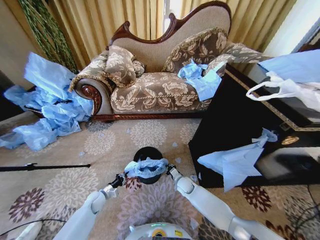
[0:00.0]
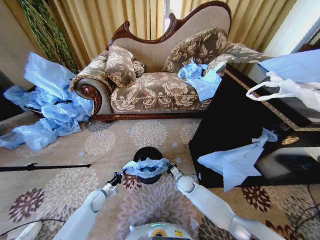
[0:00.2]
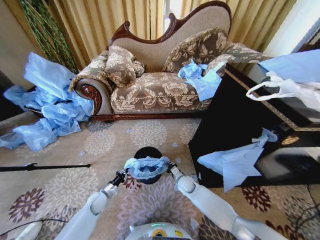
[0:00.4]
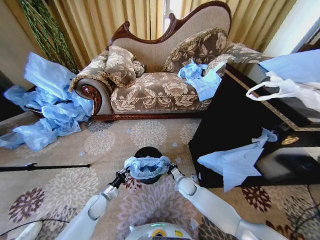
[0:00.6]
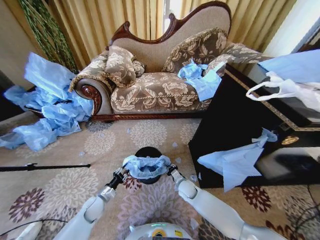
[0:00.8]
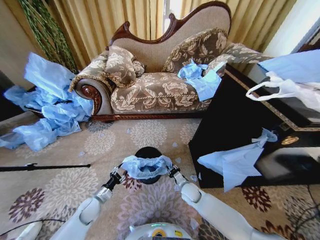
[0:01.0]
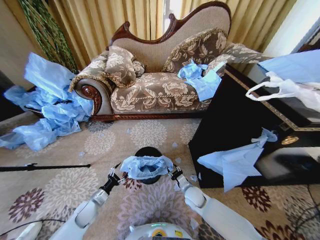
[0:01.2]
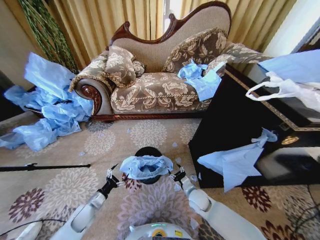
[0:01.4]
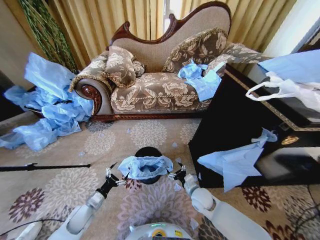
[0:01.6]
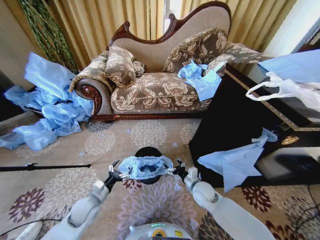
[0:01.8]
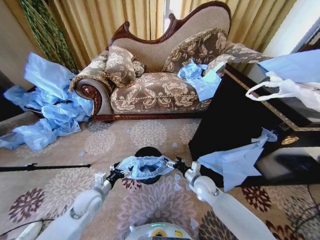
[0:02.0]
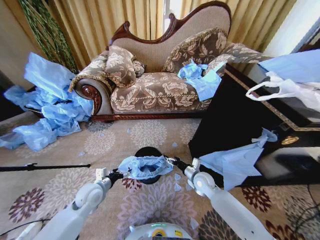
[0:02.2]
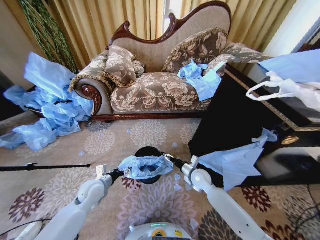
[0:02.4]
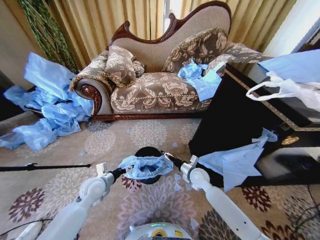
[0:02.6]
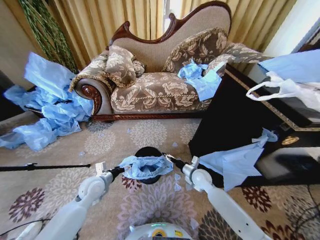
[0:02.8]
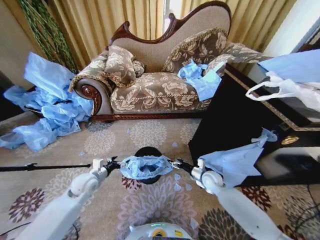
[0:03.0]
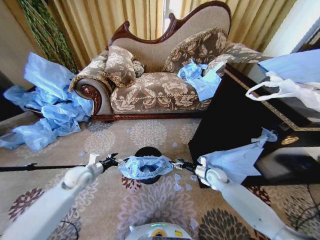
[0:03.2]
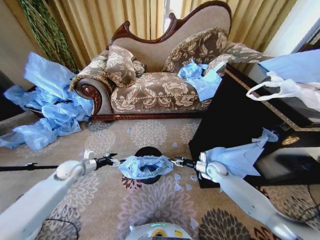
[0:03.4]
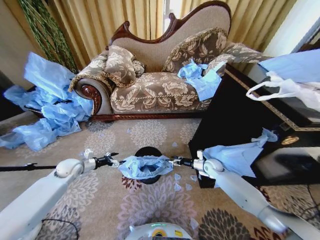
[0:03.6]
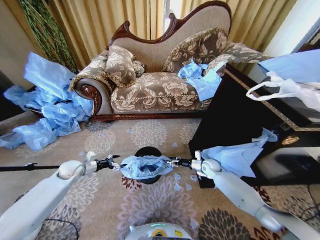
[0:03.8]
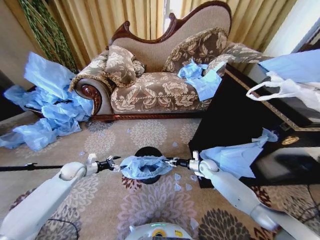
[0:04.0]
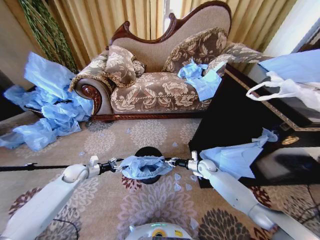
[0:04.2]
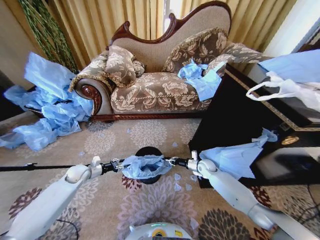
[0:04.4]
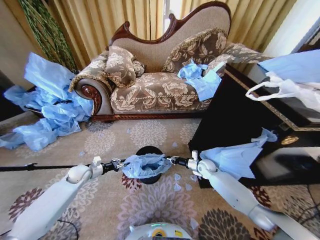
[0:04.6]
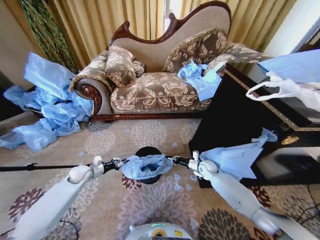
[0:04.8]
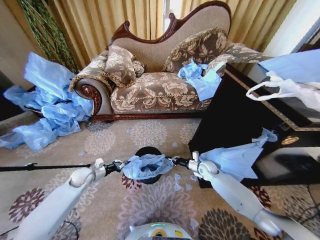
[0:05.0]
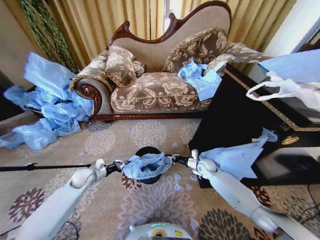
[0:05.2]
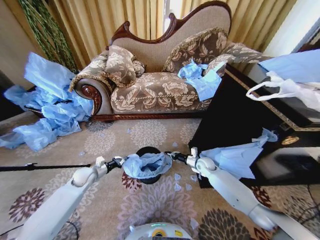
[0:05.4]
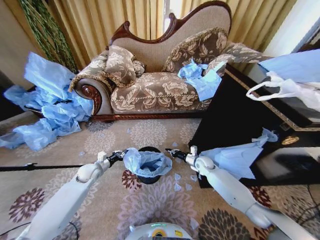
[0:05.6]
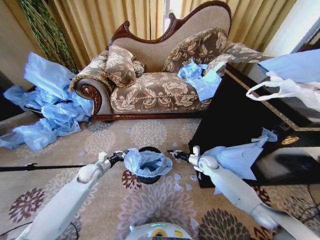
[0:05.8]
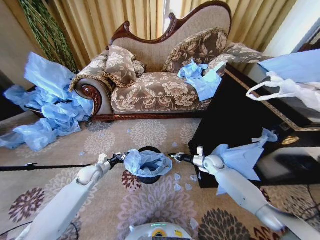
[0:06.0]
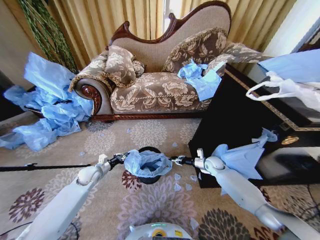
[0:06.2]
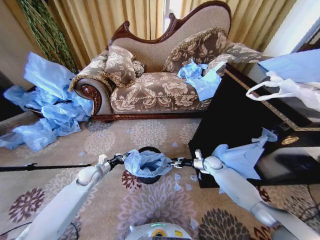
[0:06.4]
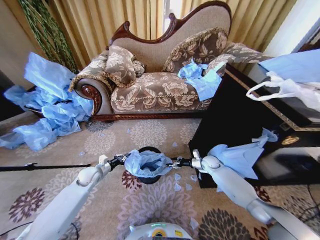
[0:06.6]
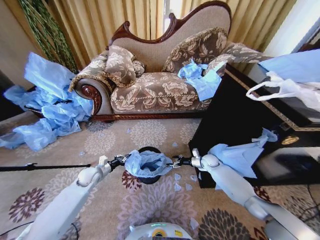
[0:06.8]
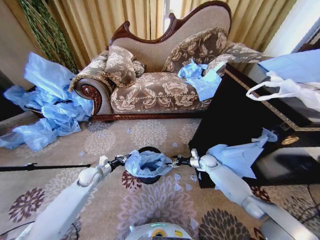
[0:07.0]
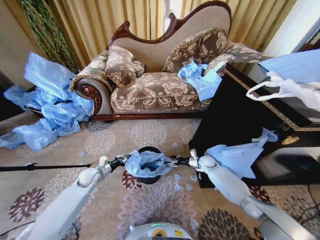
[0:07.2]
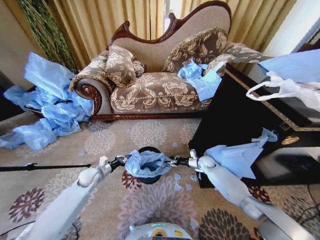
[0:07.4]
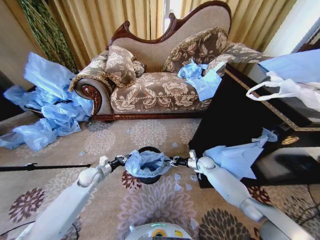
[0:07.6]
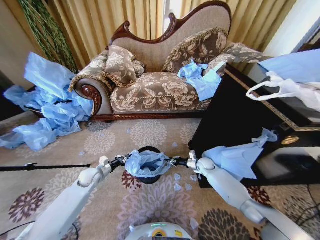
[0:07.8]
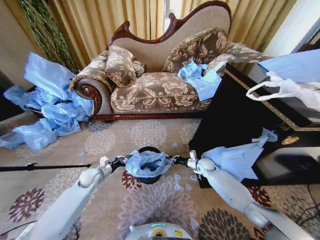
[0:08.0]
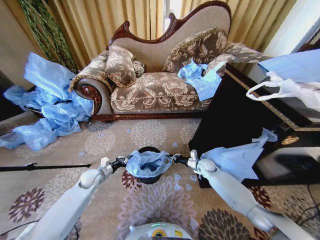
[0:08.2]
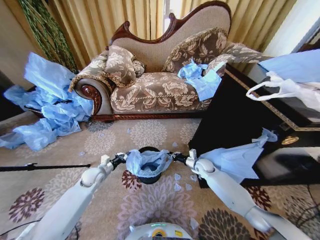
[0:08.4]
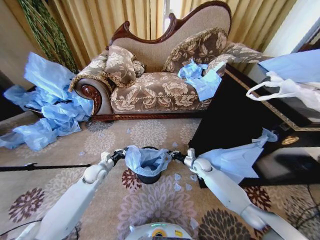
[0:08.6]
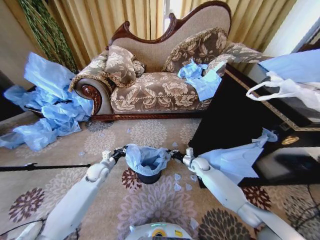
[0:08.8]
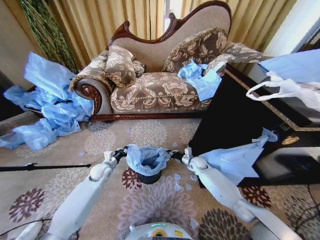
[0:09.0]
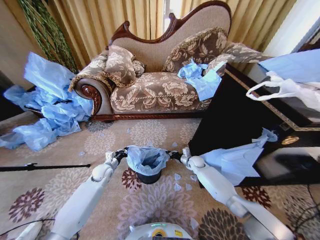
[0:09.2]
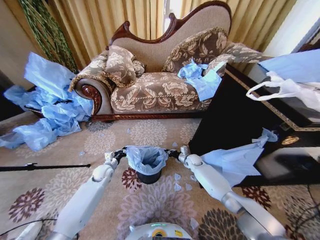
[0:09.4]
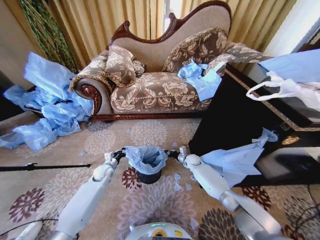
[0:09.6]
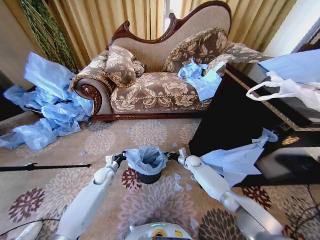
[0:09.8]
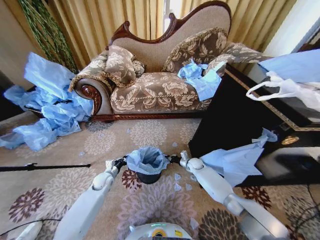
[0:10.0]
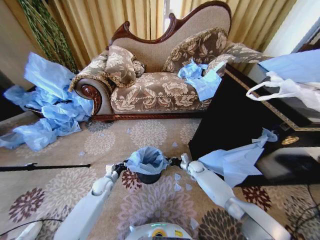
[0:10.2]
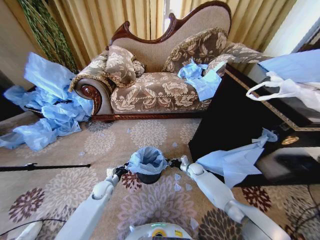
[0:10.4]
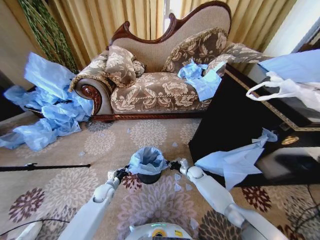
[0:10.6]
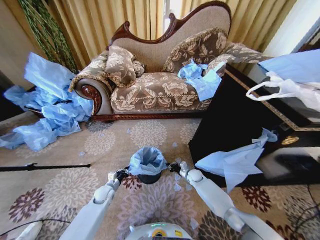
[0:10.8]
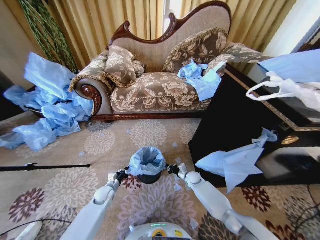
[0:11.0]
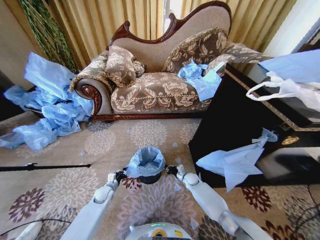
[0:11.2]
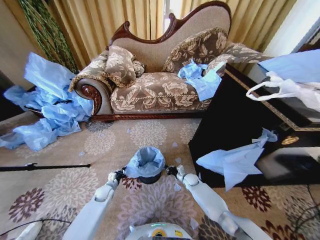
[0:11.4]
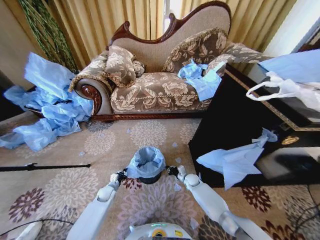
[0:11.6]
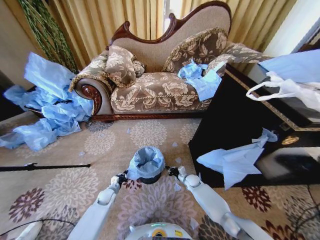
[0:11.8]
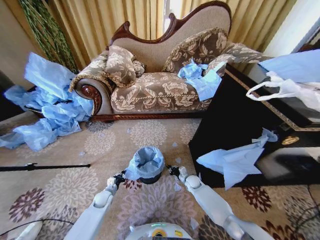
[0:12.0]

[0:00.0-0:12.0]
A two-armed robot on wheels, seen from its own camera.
Task of the whole recording: Place a garbage bag over the trash bin.
0:00.0 to 0:01.6: Both grippers move backward and upward, roughly 10 cm. The left gripper opens up, while the right gripper opens up.
0:01.6 to 0:03.0: The left gripper shifts about 15 cm upward and forward. The right gripper shifts approximately 10 cm forward and to the right.
0:03.0 to 0:04.4: The right gripper travels forward by roughly 10 cm, and closes up; the left gripper is displaced to the left and forward by roughly 10 cm, and closes.
0:04.4 to 0:06.0: The left gripper travels to the right by some 5 cm, and closes up.
0:06.0 to 0:07.6: The right gripper shifts by approximately 5 cm, and opens up.
0:07.6 to 0:09.0: The left gripper ends up approximately 5 cm from where it was, while the right gripper shifts approximately 5 cm to the left, and closes its fingers.
0:09.0 to 0:10.4: The left gripper moves downward and backward, roughly 10 cm, while the right gripper moves downward, some 5 cm.
0:10.4 to 0:12.0: The left gripper heads downward, covering about 5 cm. The right gripper is displaced backward by some 5 cm.

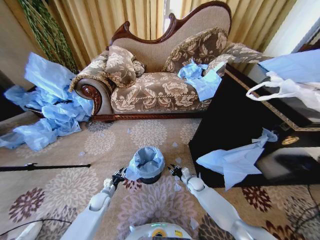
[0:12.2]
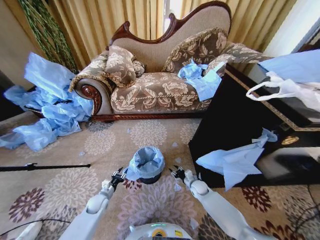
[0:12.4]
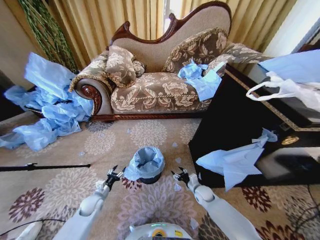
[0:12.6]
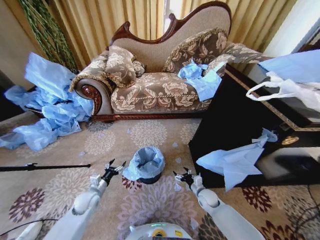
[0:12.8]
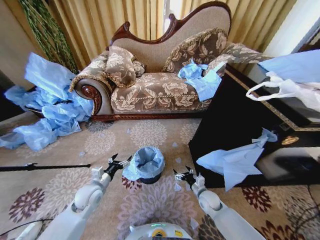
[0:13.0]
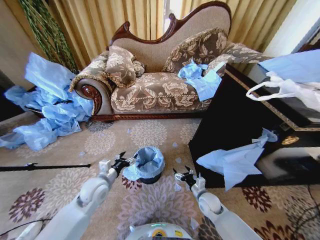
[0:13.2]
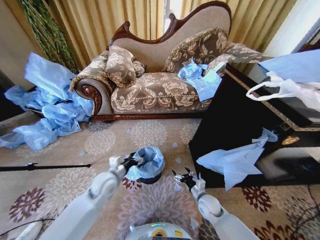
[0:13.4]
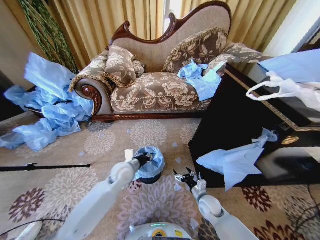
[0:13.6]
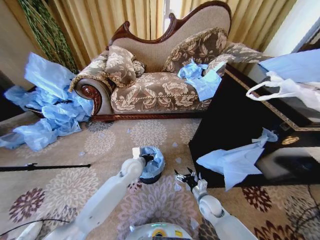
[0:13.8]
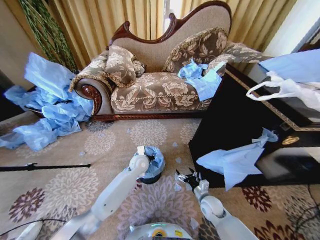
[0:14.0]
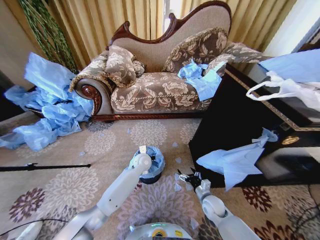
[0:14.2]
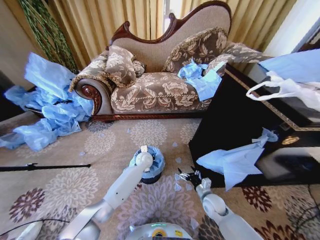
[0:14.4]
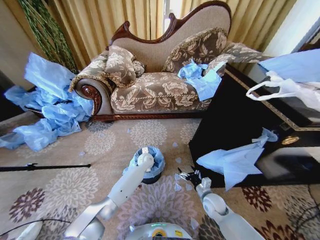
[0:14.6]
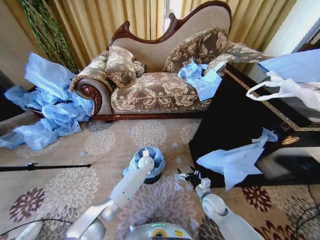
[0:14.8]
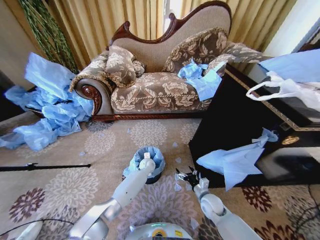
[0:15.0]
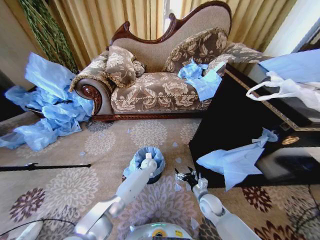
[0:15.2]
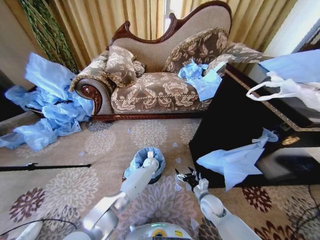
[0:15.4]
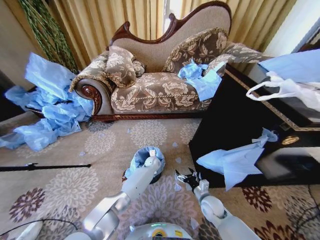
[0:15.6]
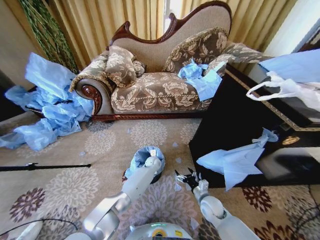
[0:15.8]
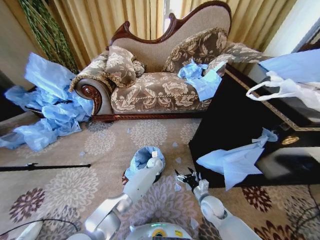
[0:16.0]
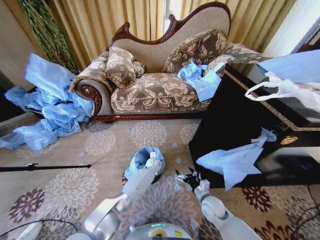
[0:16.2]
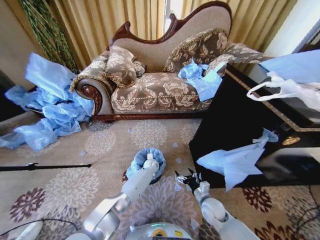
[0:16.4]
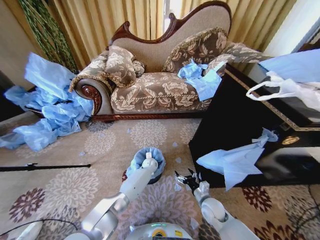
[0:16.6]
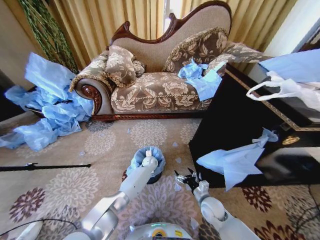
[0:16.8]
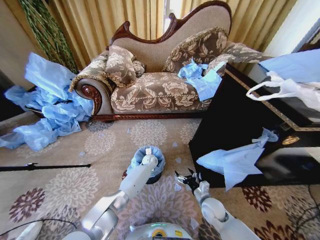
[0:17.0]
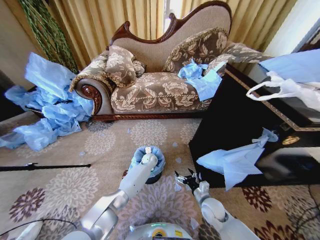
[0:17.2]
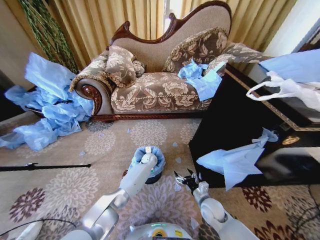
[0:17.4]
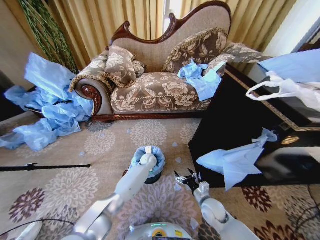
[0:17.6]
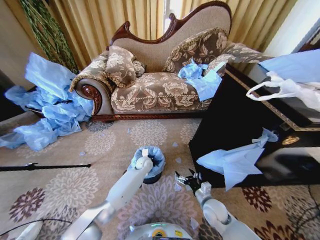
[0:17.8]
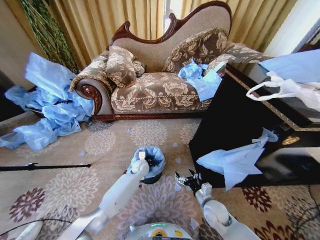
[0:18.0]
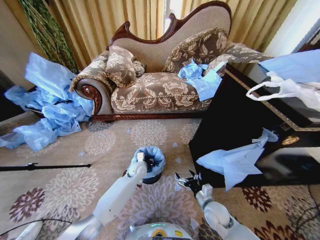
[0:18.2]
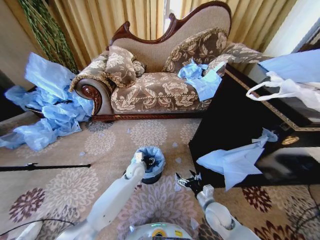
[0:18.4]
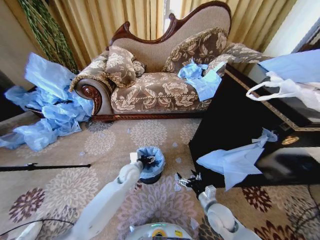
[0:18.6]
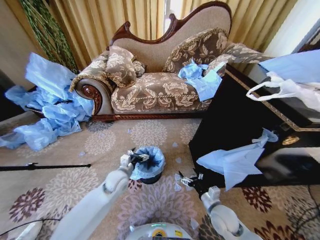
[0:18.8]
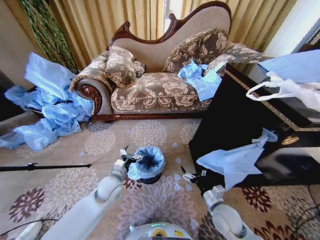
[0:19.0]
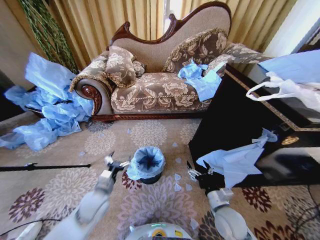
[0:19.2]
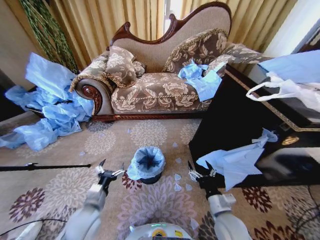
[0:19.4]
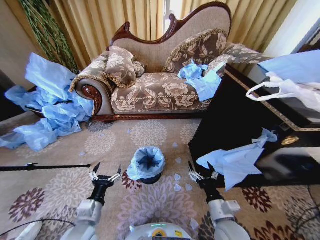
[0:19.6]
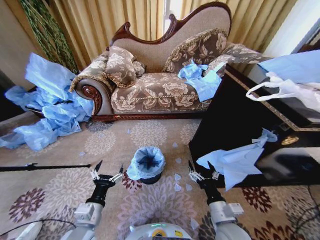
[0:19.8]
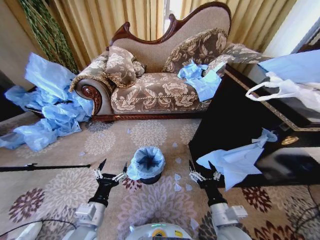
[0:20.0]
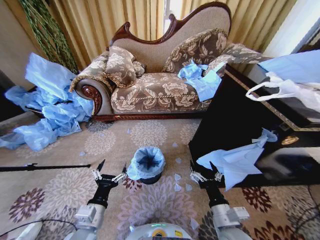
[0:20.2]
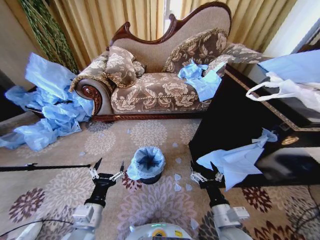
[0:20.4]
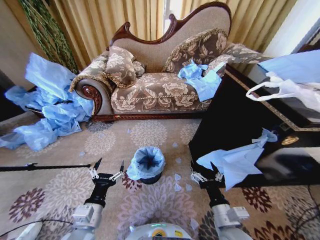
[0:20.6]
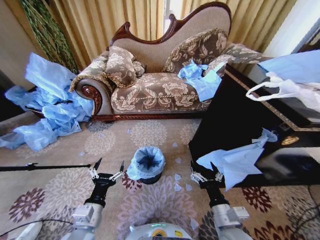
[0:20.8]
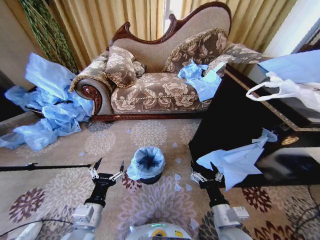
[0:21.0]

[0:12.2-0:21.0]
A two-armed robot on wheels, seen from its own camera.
Task of the whole recording: Place a garbage bag over the trash bin.
0:12.2 to 0:13.6: The right gripper goes approximately 15 cm backward and upward, and opens; the left gripper goes approximately 25 cm upward and to the right, and opens and closes again.
0:13.6 to 0:15.2: The left gripper goes about 25 cm downward, forward and to the right, and closes its fingers.
0:15.2 to 0:16.6: There are only small adjustments of the grippers.
0:16.6 to 0:18.0: The left gripper is displaced upward and backward by roughly 10 cm.
0:18.0 to 0:19.6: The right gripper moves upward and backward, roughly 15 cm. Meanwhile the left gripper is displaced backward and to the left by roughly 35 cm, and opens up.
0:19.6 to 0:21.0: The grippers move only a little.

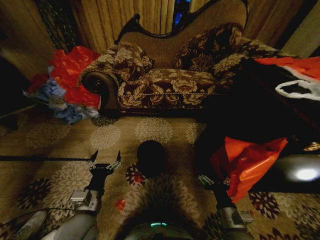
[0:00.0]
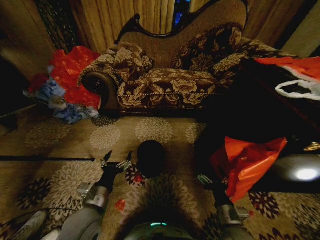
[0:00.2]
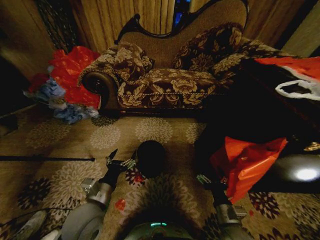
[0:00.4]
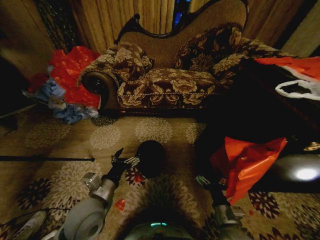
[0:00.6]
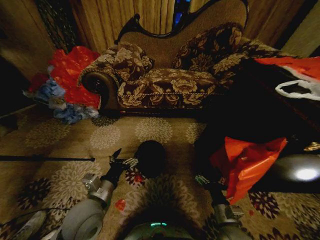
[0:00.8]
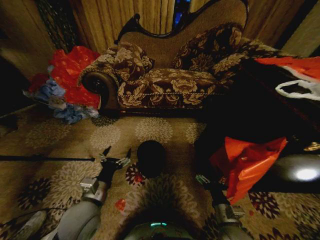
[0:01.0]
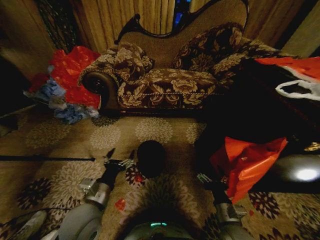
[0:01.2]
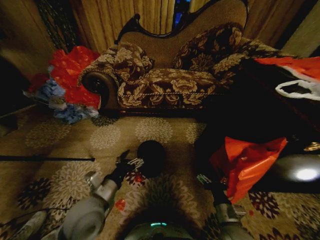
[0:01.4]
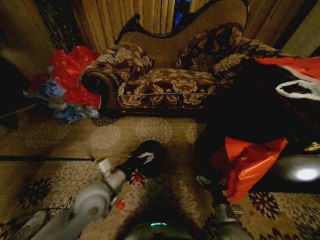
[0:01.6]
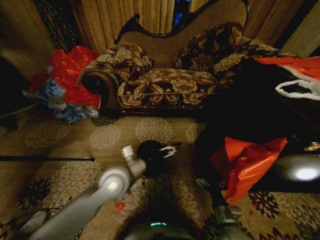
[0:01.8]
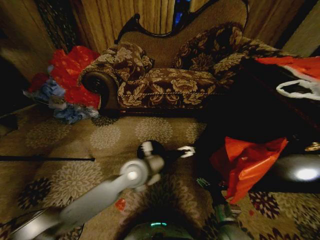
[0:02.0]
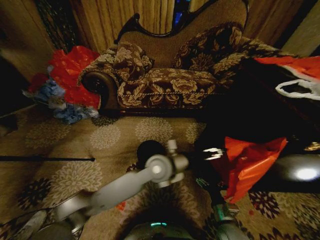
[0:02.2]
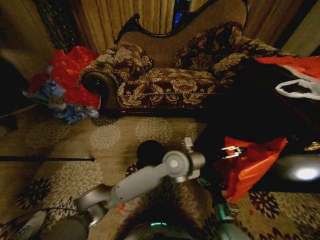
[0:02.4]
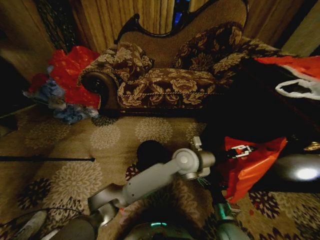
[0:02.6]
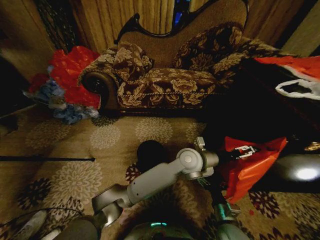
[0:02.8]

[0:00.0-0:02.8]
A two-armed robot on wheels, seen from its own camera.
Task of the whole recording: Place a garbage bag over the trash bin.
0:01.4 to 0:02.8: The left gripper shifts some 35 cm to the right and forward.
